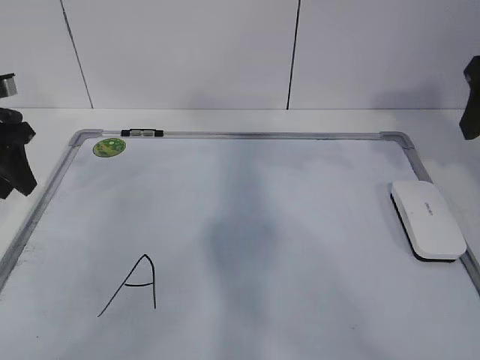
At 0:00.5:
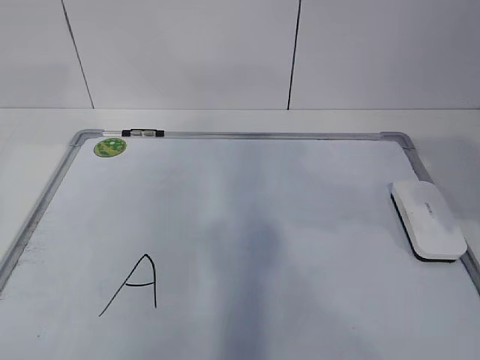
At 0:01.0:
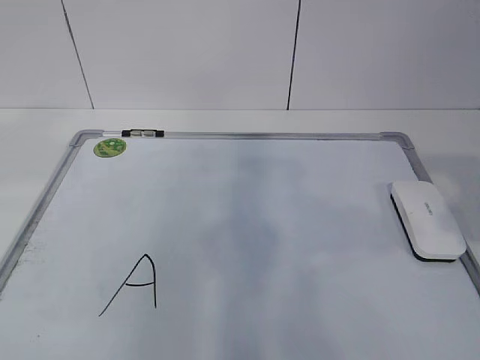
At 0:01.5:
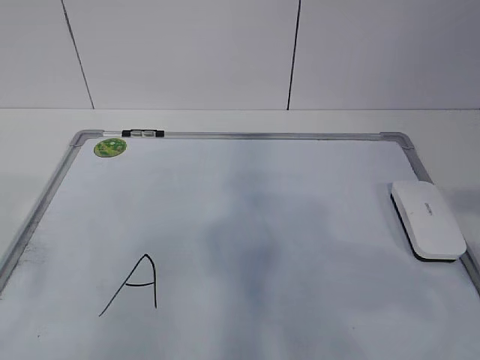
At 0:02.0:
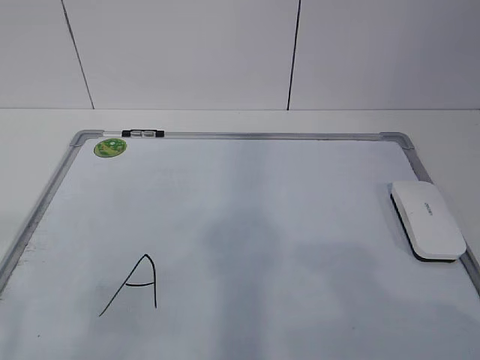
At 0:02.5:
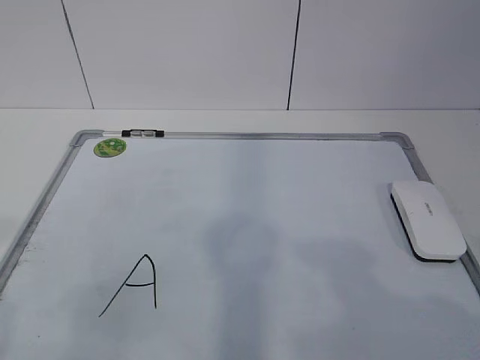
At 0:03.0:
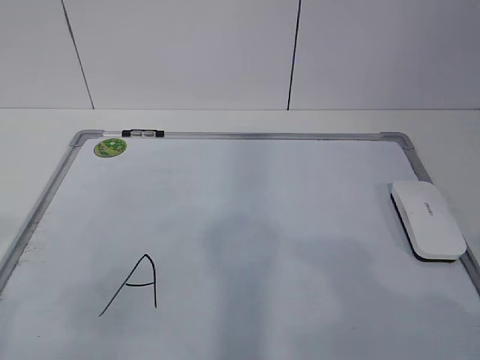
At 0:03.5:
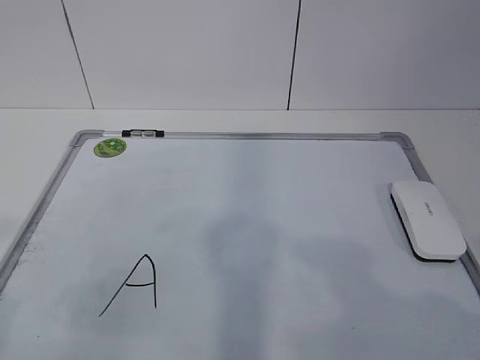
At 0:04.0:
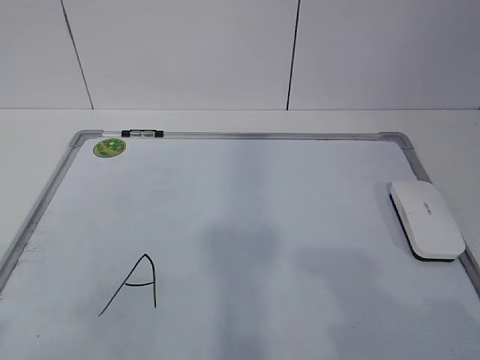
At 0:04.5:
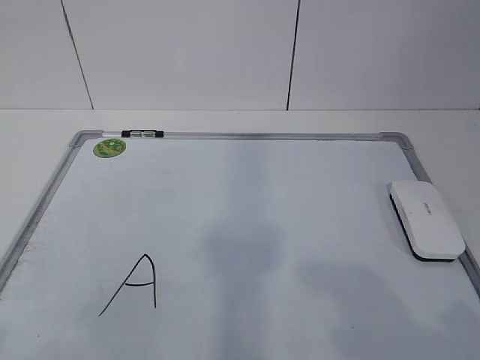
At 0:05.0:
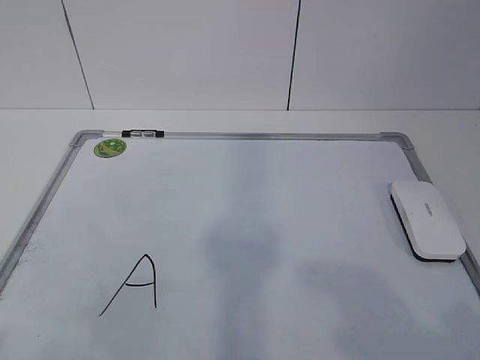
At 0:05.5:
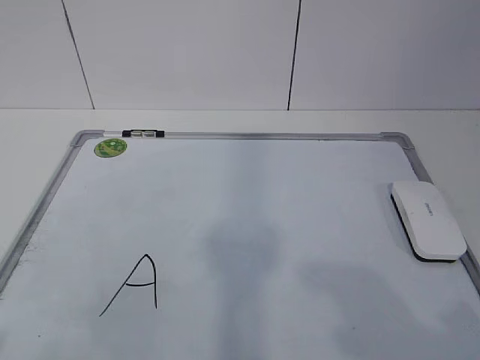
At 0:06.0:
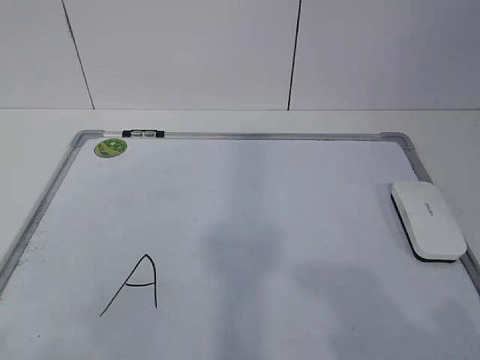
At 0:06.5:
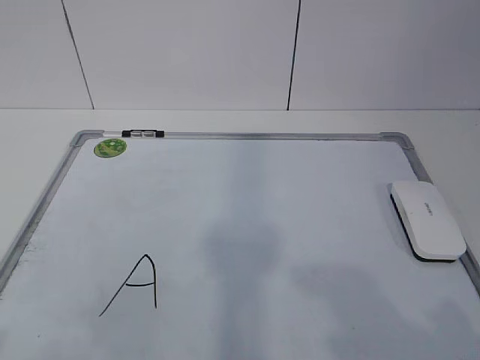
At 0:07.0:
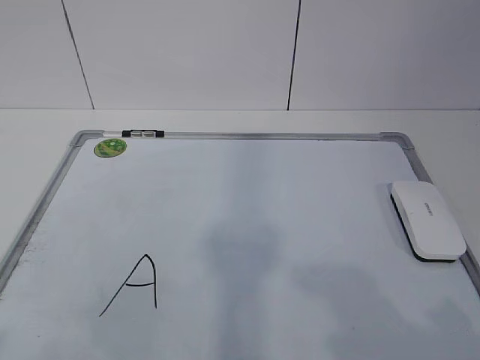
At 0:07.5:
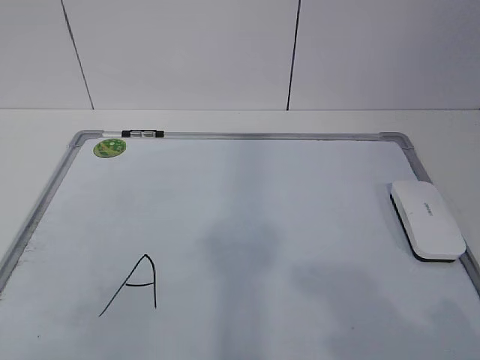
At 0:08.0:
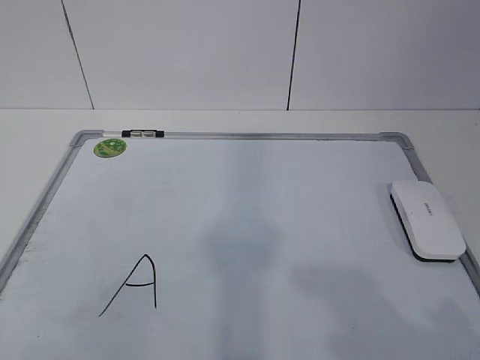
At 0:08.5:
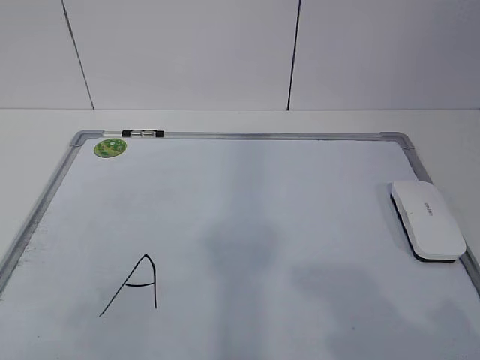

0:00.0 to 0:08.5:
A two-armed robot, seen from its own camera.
Task of the whole recording: pick up the eraser on the blackboard and erase the letter "a".
0:00.0 to 0:02.0: The grippers both shift backward by some 30 cm.
0:06.5 to 0:08.5: The two grippers keep their place.

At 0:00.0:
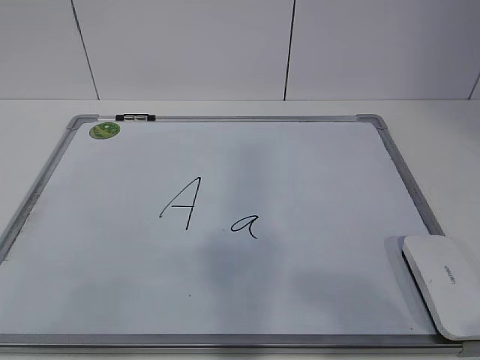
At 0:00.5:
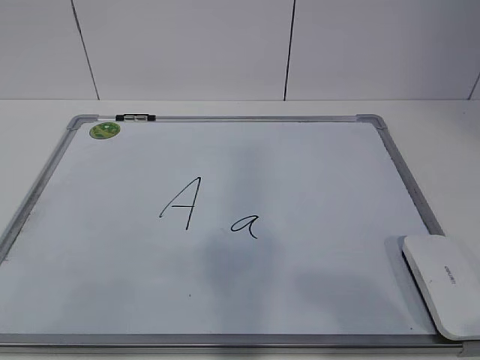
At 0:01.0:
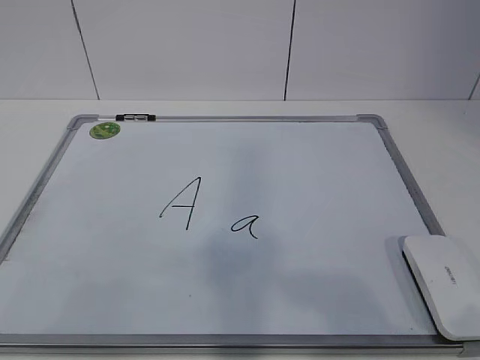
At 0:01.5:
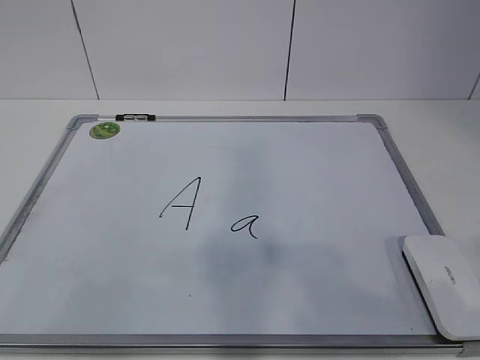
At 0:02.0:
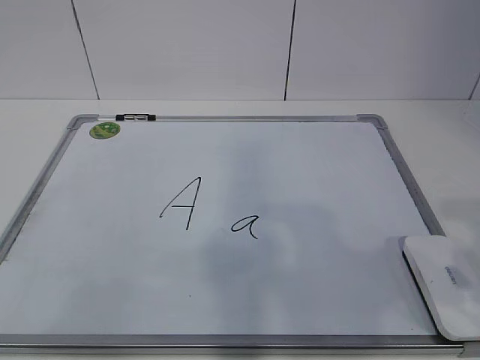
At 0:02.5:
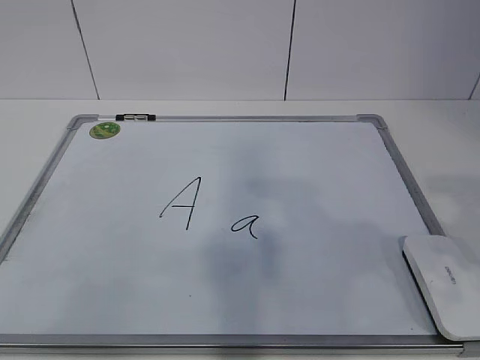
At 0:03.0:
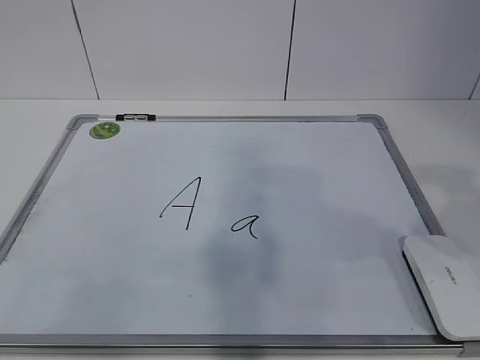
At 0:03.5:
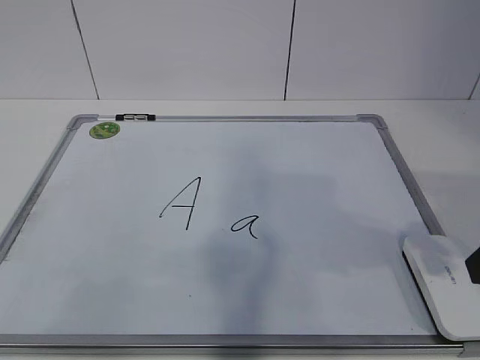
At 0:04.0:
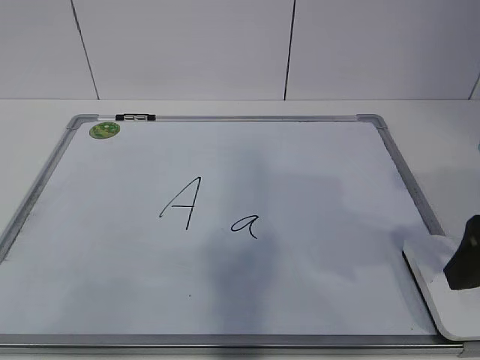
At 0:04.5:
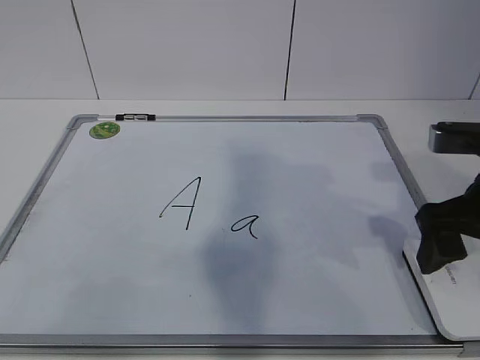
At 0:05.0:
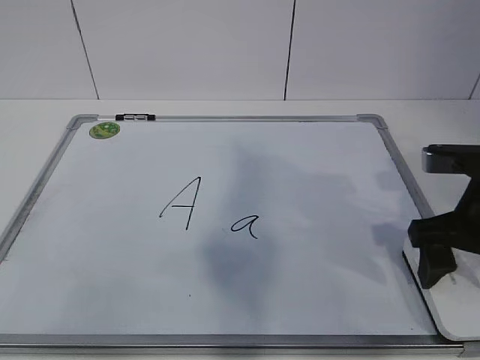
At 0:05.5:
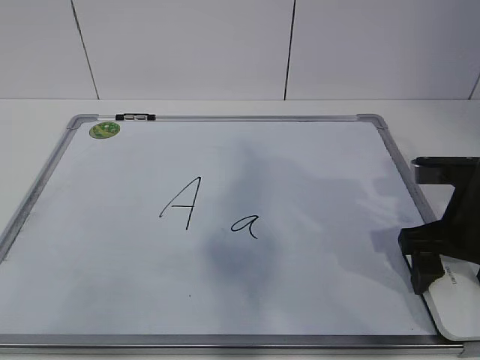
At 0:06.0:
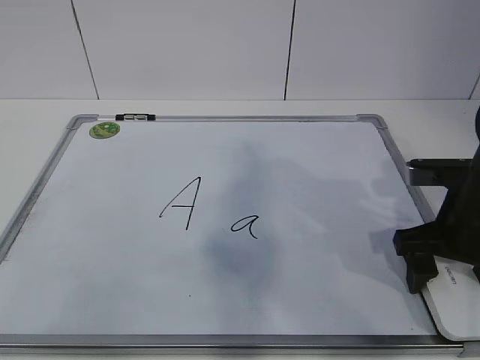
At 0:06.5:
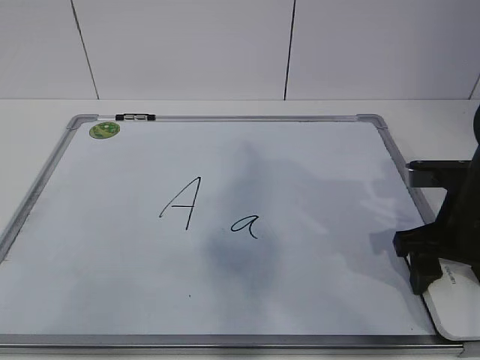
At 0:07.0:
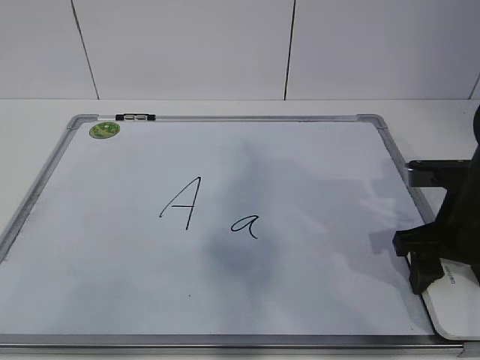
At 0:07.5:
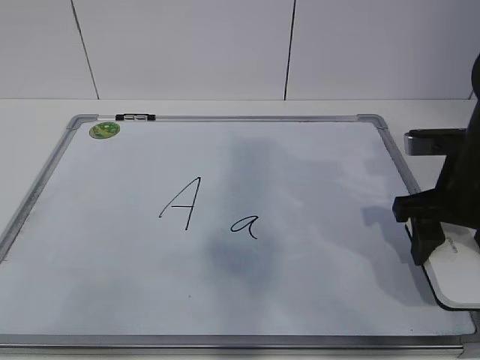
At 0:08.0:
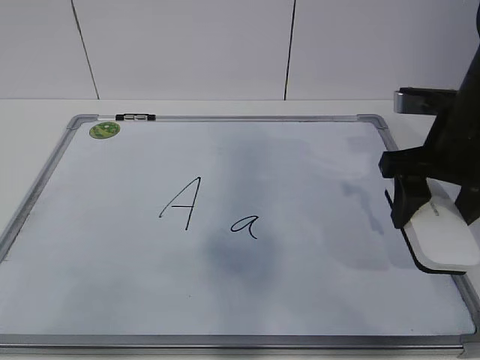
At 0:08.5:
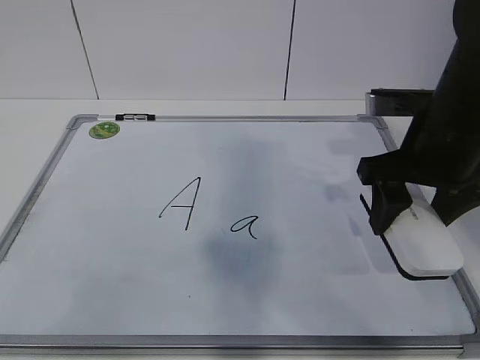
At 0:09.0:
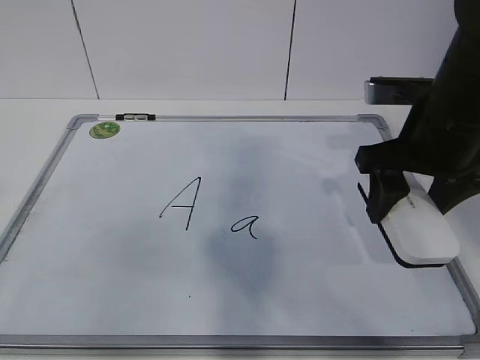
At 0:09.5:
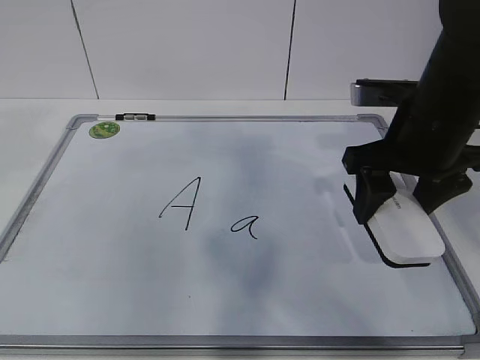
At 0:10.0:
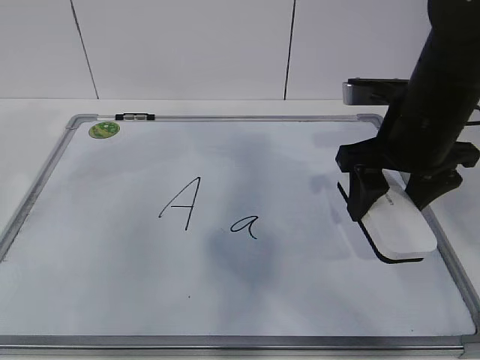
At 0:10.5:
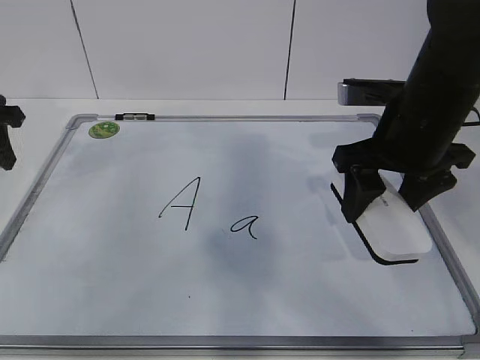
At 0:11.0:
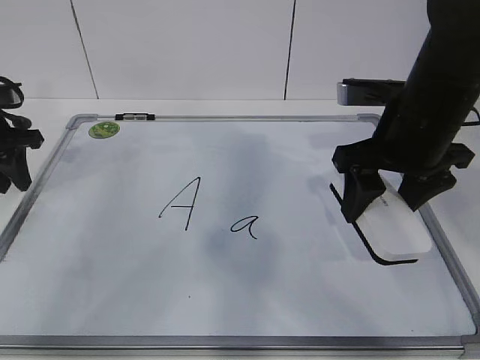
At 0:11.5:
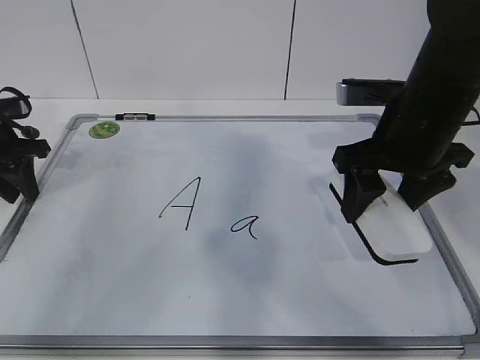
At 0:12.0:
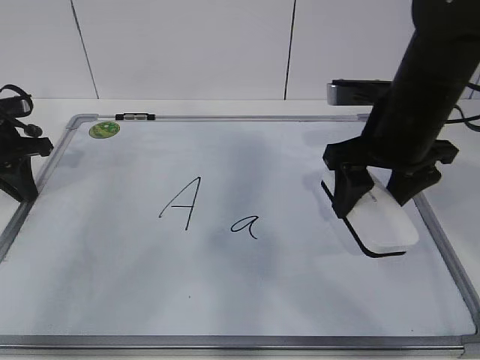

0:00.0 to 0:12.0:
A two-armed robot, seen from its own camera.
Task of the whole recording: pick up the eraser on the blackboard and erase the letter "a".
Step, 0:00.0 to 0:05.5: Grab the eraser with your right hand.
Step, 0:06.0 to 0:09.5: Hold the drawing board steady with your left hand.
0:02.0 to 0:04.0: The right gripper is displaced forward by about 10 cm, and opens up.
0:04.0 to 0:06.0: The right gripper heads downward and forward, covering approximately 10 cm.
0:06.0 to 0:08.0: The right gripper travels upward by some 5 cm, and closes.
0:10.0 to 0:12.0: The left gripper moves downward and forward, approximately 15 cm, and closes up.

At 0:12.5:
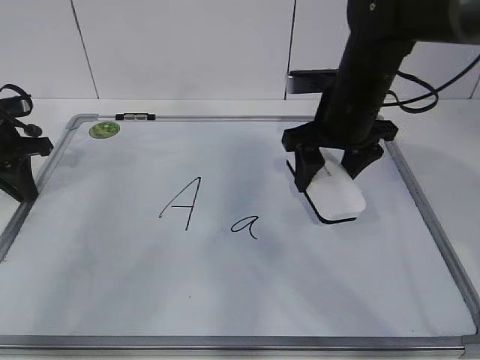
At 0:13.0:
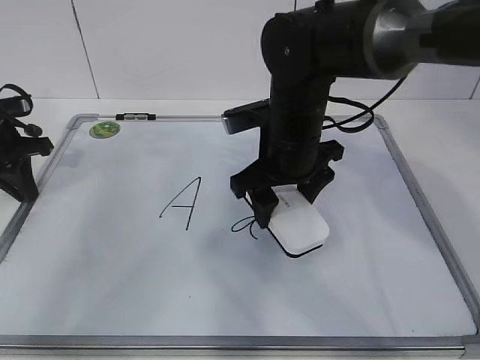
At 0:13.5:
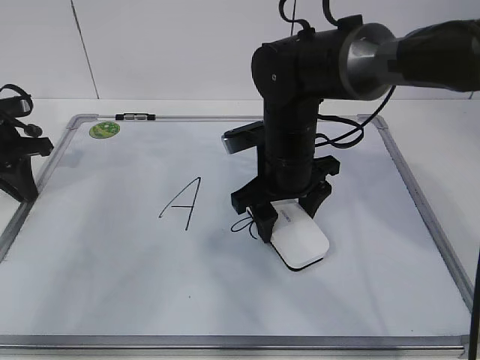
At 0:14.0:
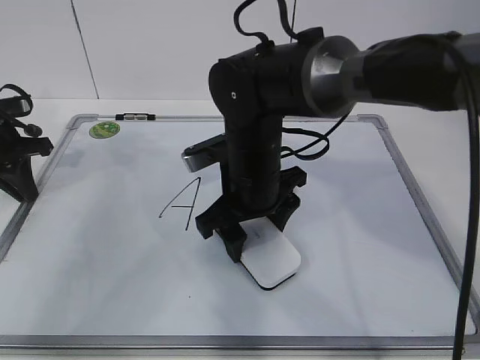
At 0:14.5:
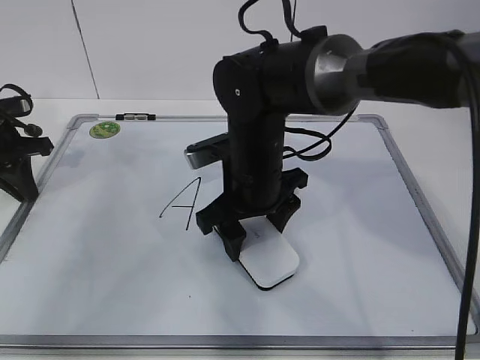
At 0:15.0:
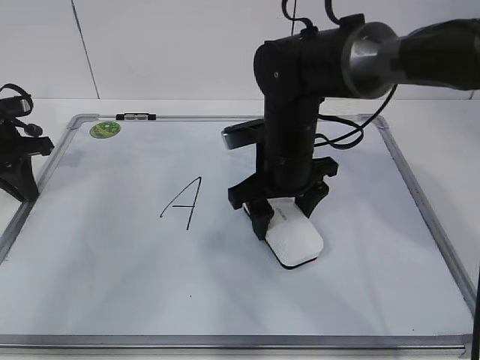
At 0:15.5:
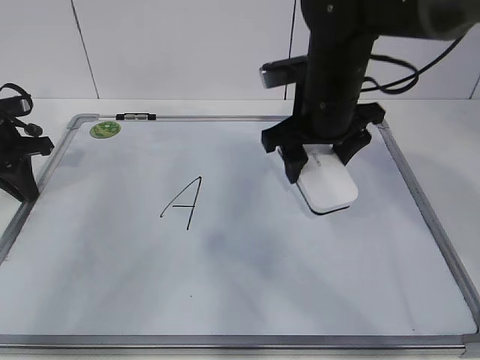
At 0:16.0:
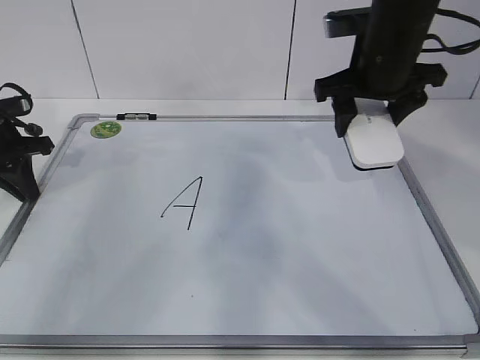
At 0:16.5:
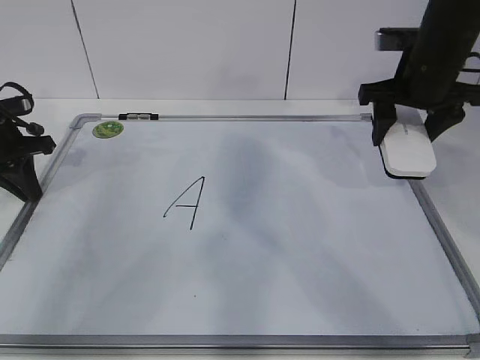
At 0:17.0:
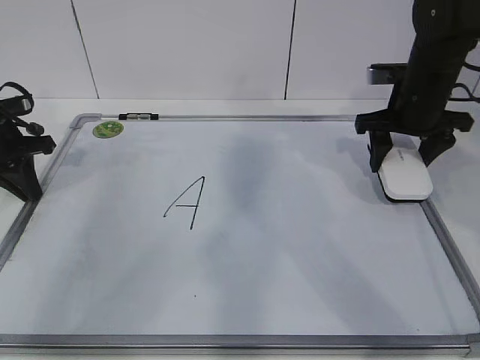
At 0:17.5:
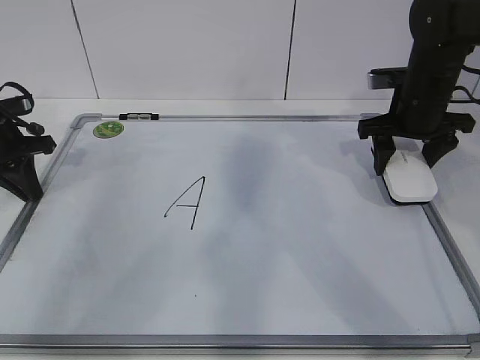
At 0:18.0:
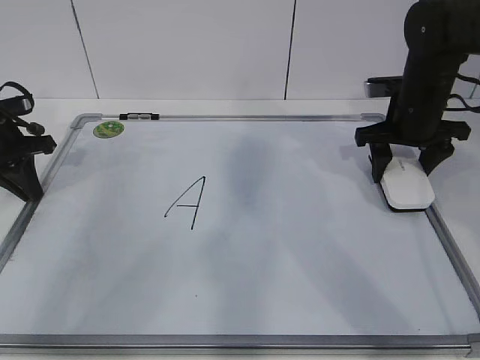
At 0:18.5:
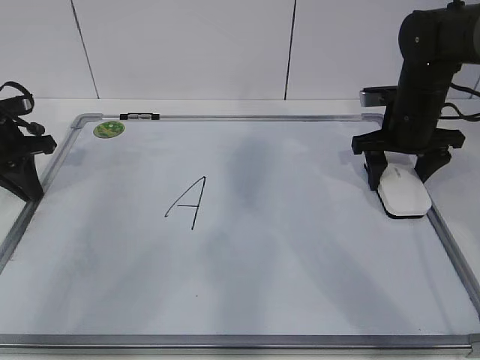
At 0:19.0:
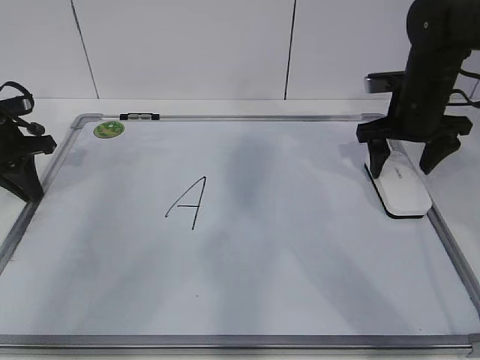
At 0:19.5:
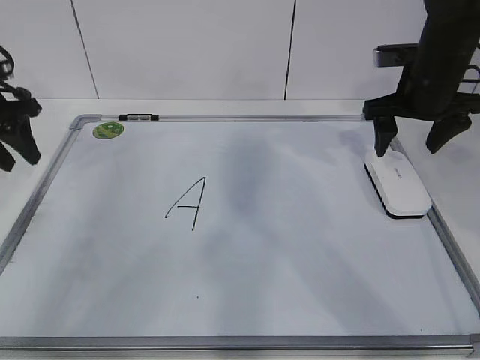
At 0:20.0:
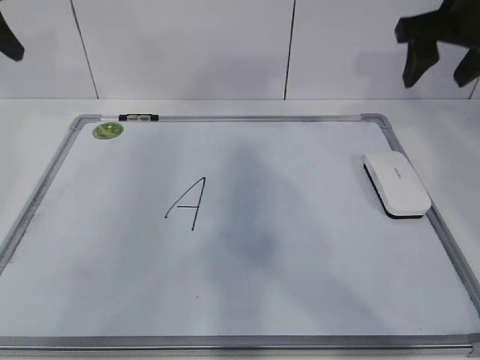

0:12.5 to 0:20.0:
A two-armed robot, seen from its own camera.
Task of the whole recording: pick up the eraser on the blackboard and erase the letter "a".
Step, 0:13.0 to 0:15.0: Put down the eraser with your right hand.
0:12.5 to 0:14.5: The right gripper goes about 10 cm to the left and downward.
0:14.5 to 0:16.5: The right gripper goes approximately 20 cm to the right and upward.
0:16.5 to 0:18.0: The right gripper shifts about 5 cm downward.
0:18.0 to 0:20.0: Both grippers move upward, approximately 15 cm. The right gripper opens, then closes once more. Meanwhile the left gripper opens.
